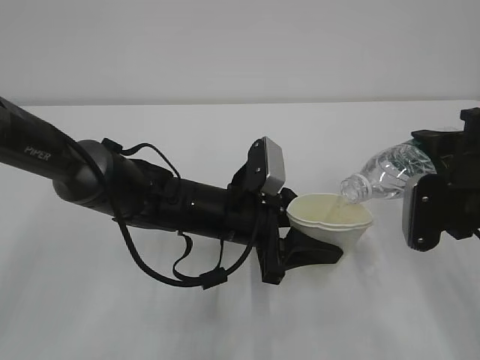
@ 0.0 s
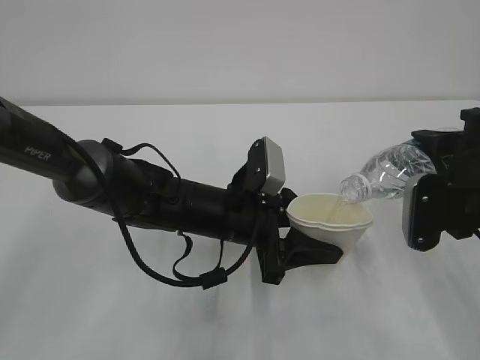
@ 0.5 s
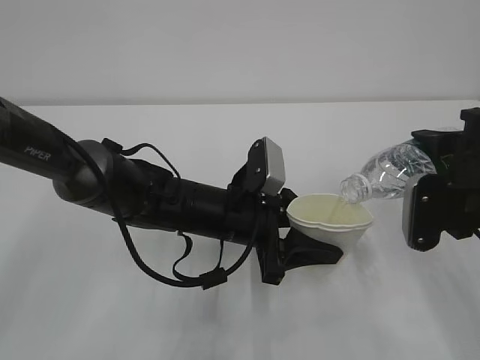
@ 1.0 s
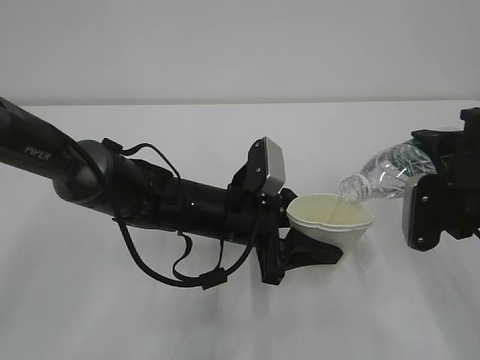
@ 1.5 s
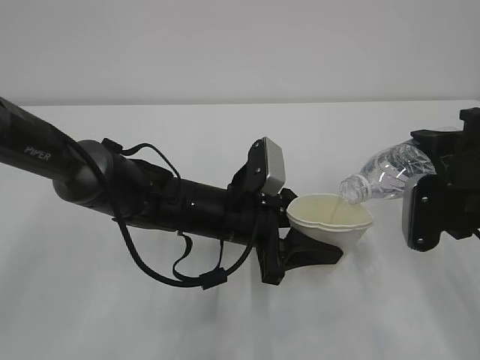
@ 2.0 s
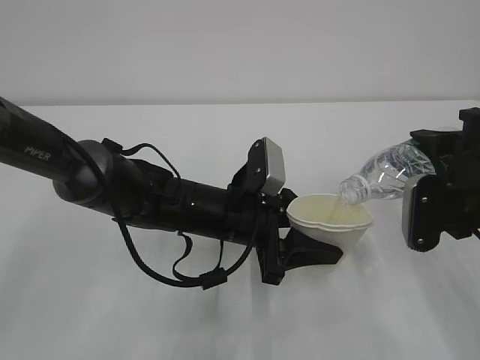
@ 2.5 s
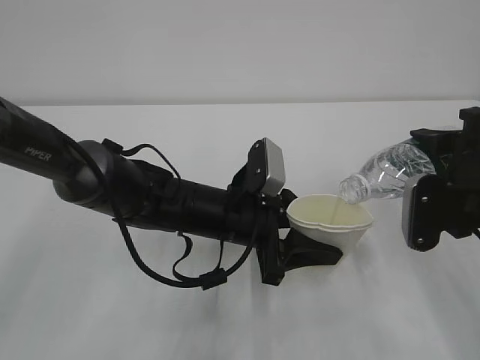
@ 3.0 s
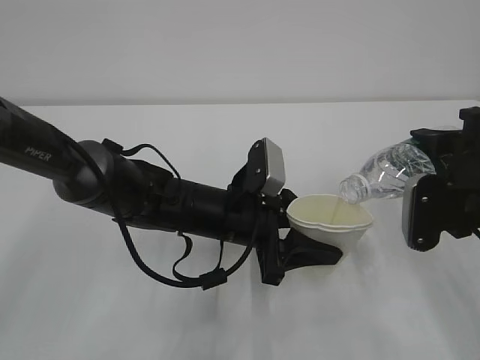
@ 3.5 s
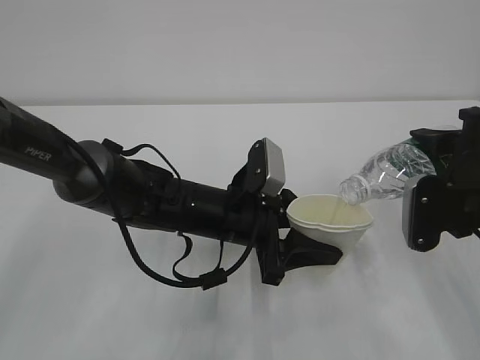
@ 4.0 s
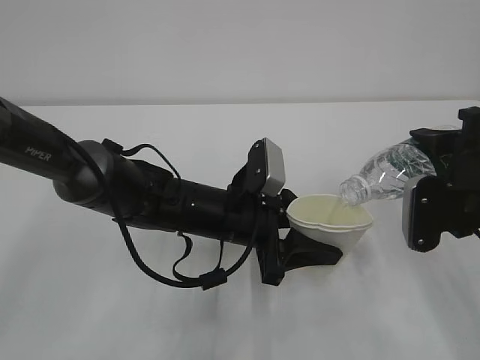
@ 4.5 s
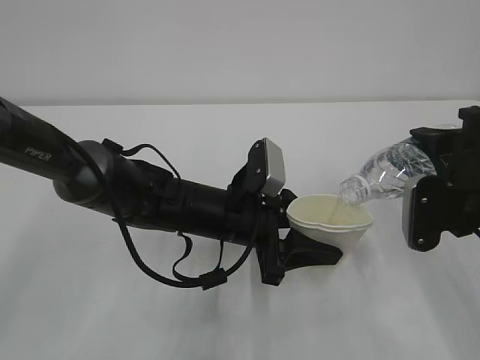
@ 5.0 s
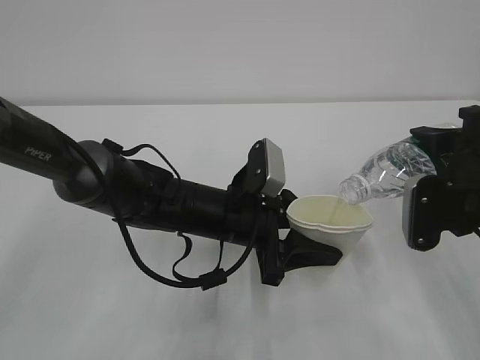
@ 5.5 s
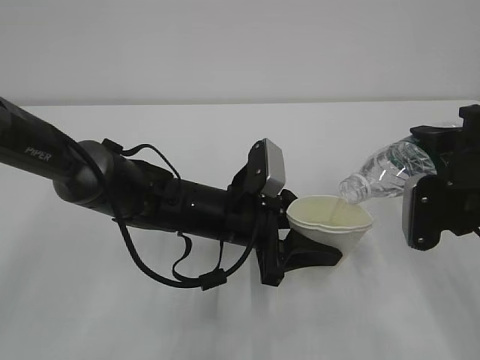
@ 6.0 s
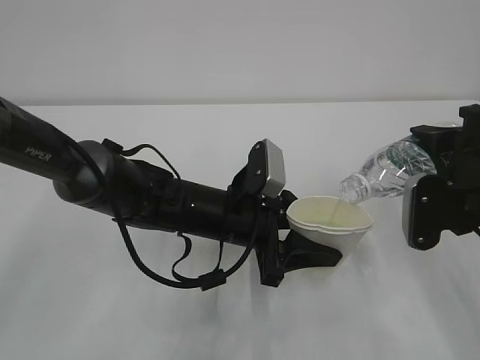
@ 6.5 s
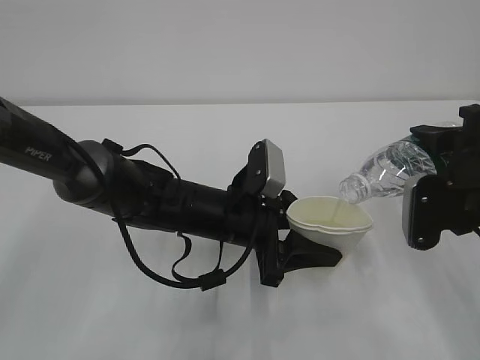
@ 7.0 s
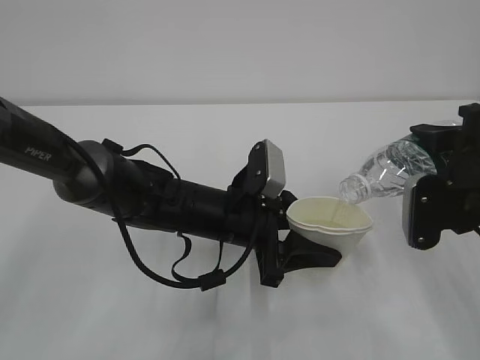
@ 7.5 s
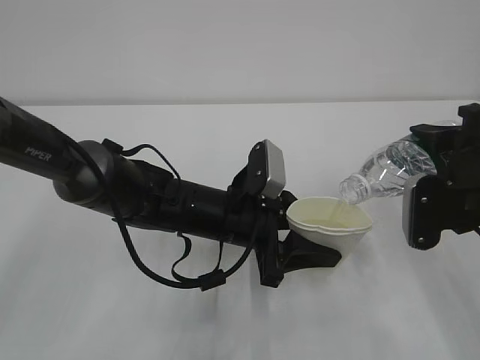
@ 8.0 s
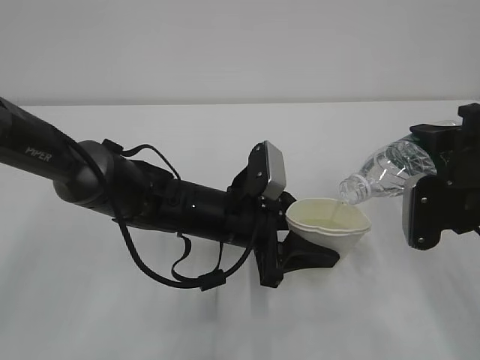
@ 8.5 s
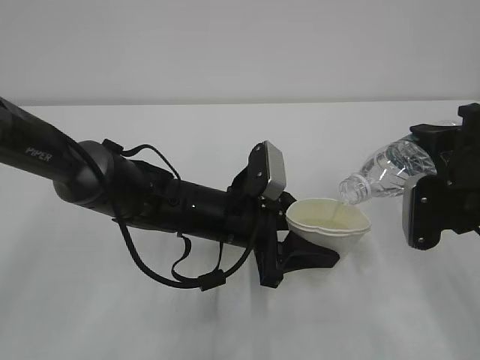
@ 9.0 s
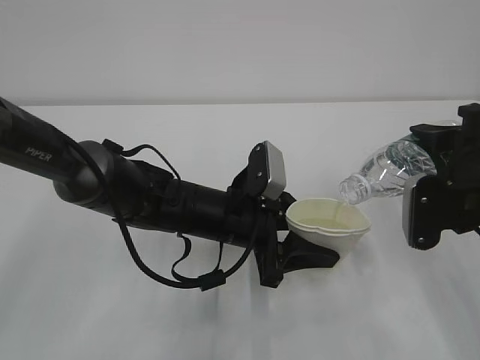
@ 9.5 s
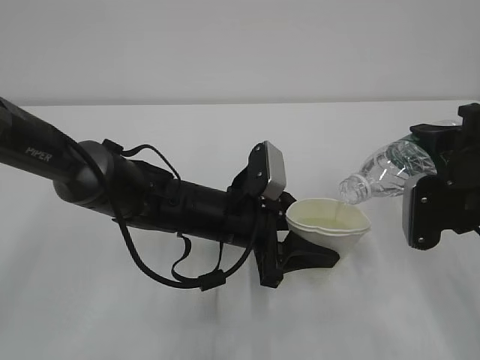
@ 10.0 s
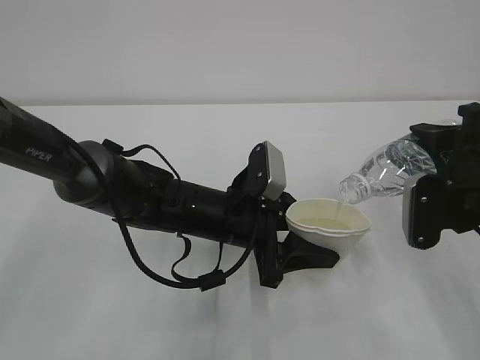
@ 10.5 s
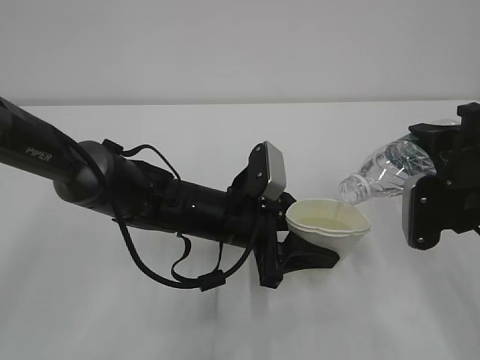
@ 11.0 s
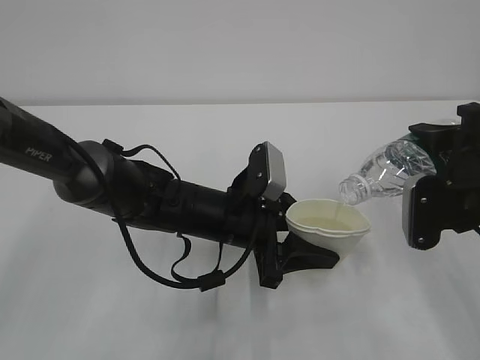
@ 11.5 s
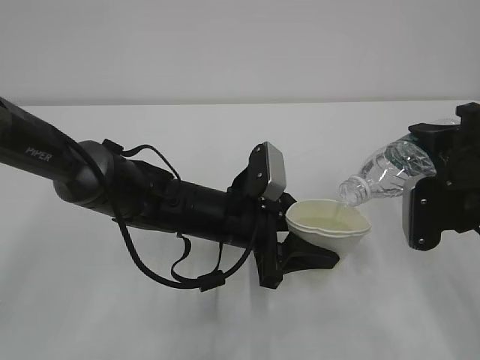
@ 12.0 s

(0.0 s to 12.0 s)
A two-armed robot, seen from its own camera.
0.0 s - 12.0 s: The two grippers keep their place.

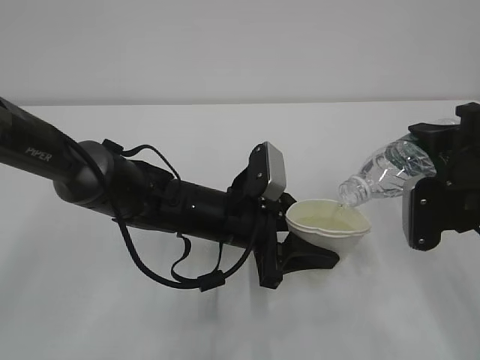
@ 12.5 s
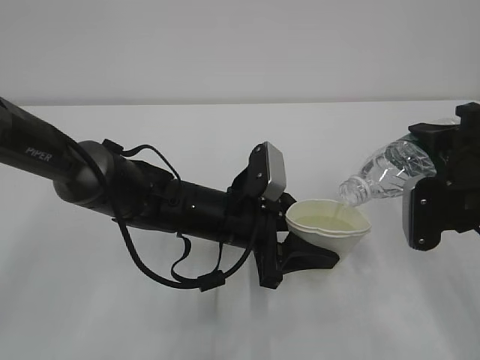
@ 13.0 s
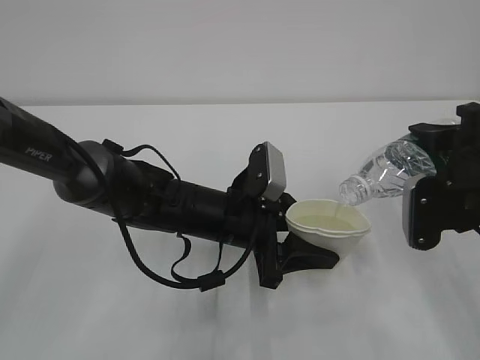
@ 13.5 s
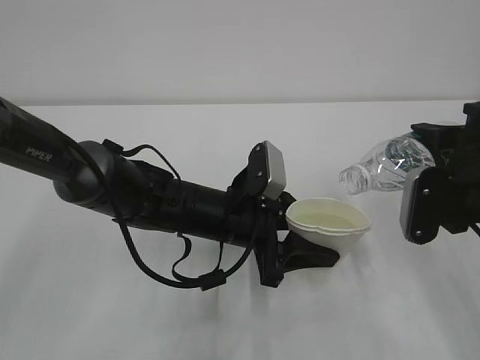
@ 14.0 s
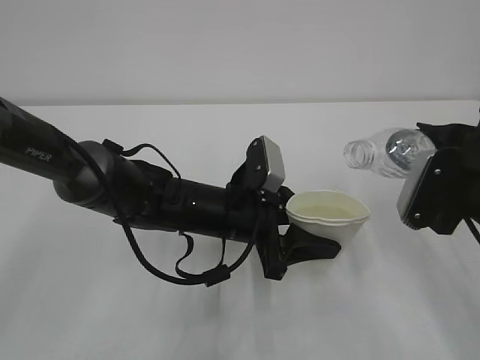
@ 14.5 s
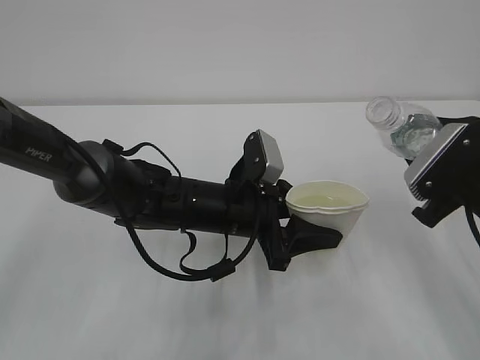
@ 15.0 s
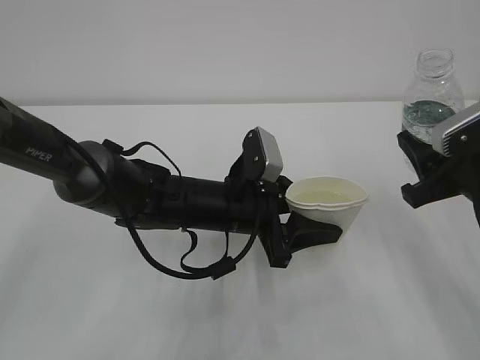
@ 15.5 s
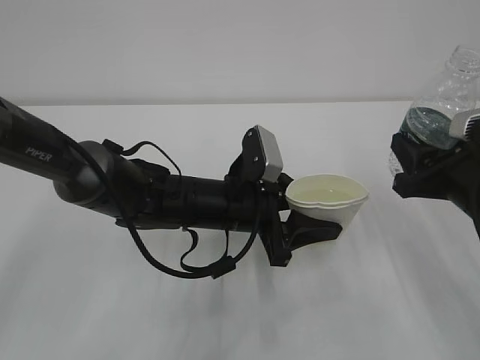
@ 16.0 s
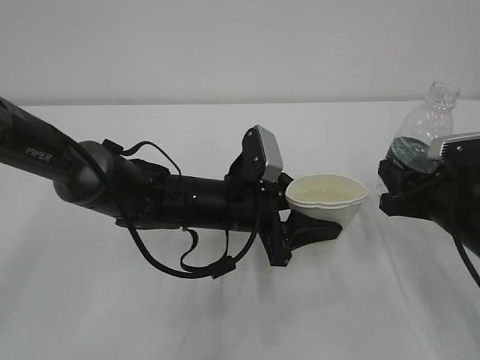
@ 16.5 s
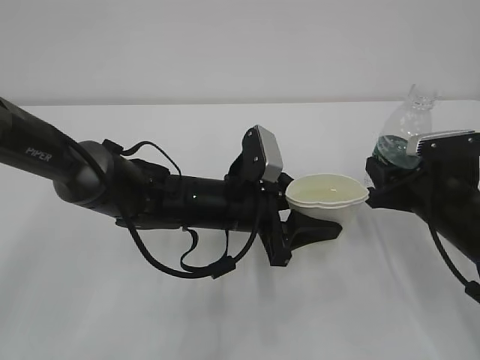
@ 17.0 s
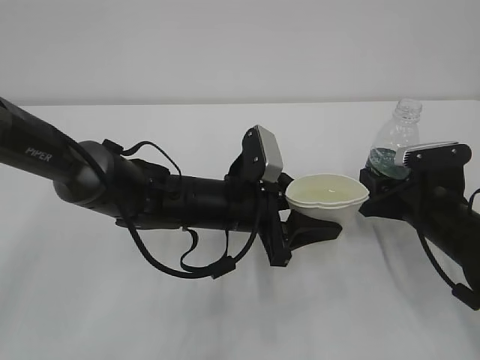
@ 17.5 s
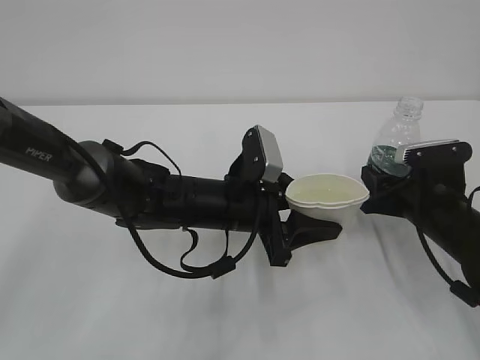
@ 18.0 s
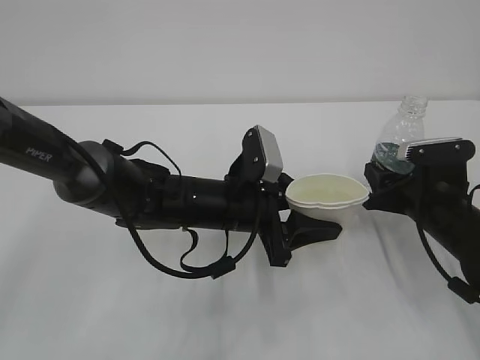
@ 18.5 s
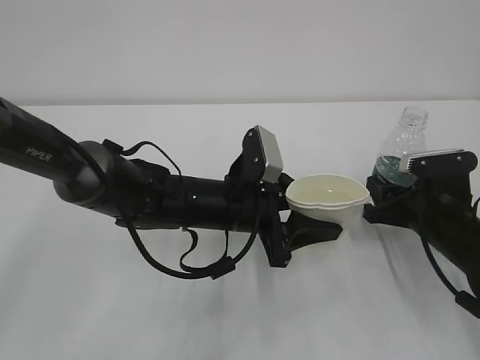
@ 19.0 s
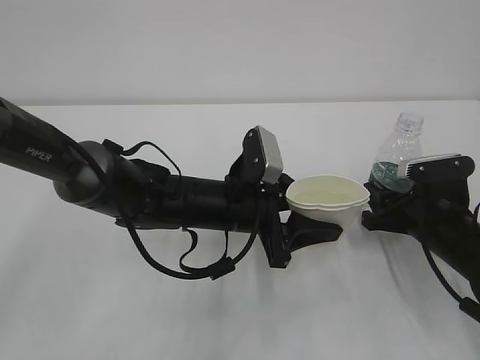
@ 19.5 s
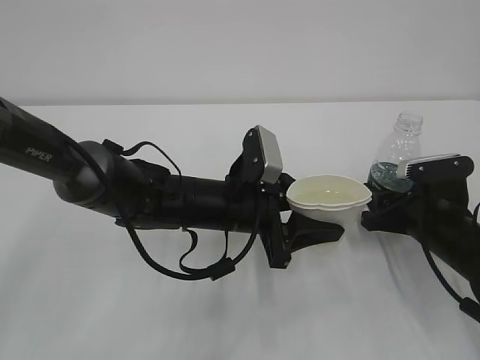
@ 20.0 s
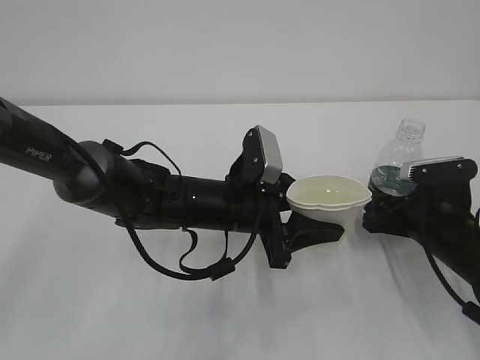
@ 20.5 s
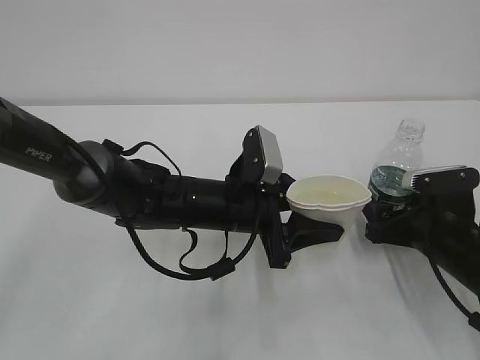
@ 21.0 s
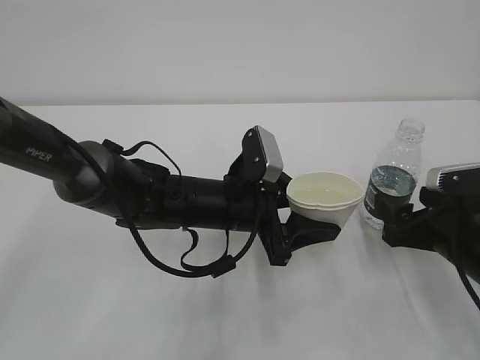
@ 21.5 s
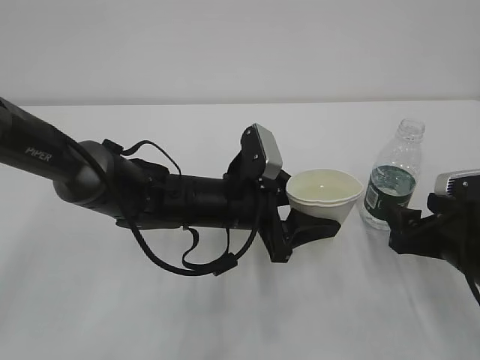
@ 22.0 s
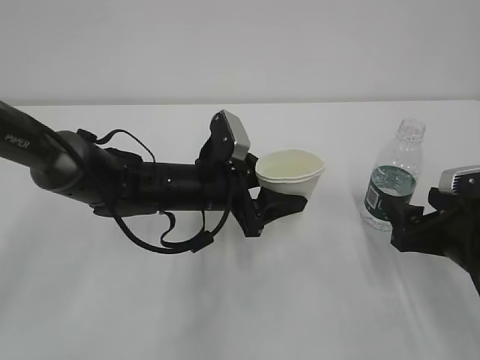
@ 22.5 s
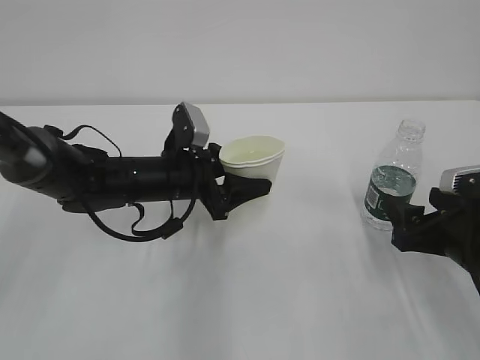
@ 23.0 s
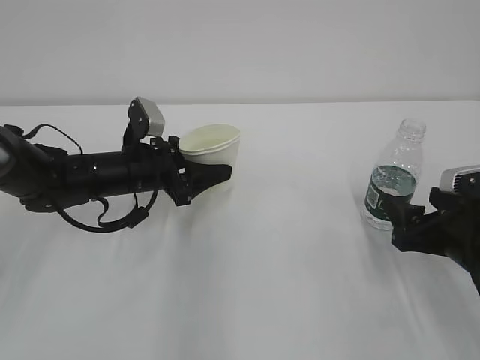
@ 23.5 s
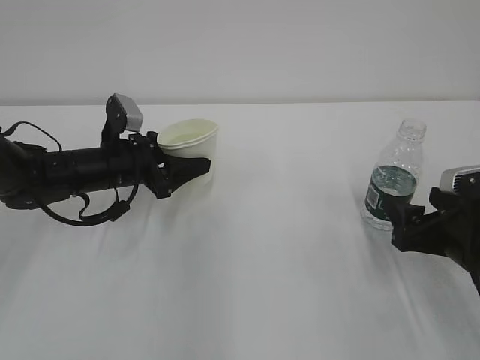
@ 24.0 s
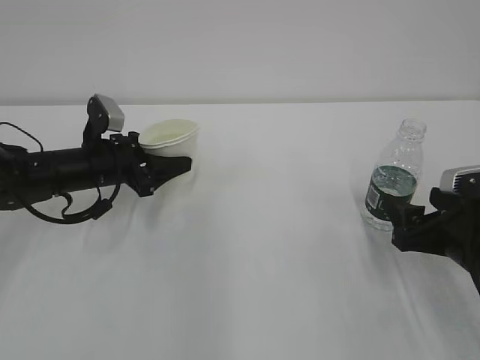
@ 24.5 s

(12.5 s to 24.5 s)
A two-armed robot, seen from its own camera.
14.5 s - 16.5 s: The right gripper heads downward, covering roughly 5 cm.
16.5 s - 18.5 s: The right gripper changes place by about 5 cm.
18.5 s - 20.5 s: The right gripper opens its fingers.
20.5 s - 22.5 s: The right gripper is displaced backward by roughly 5 cm.
22.5 s - 24.5 s: The left gripper goes approximately 15 cm to the left.

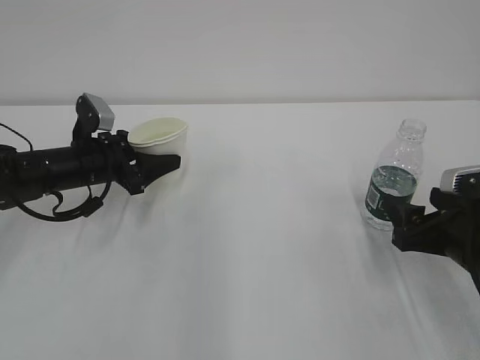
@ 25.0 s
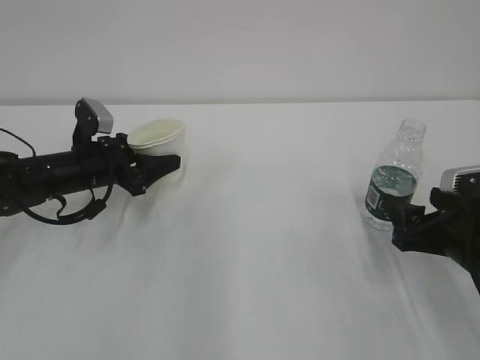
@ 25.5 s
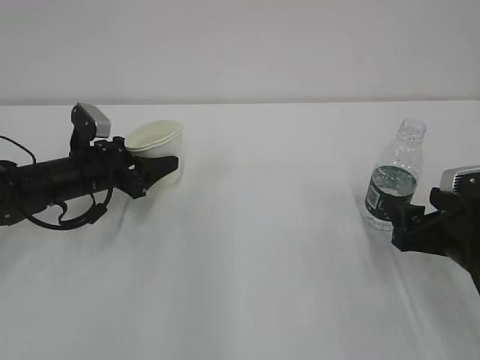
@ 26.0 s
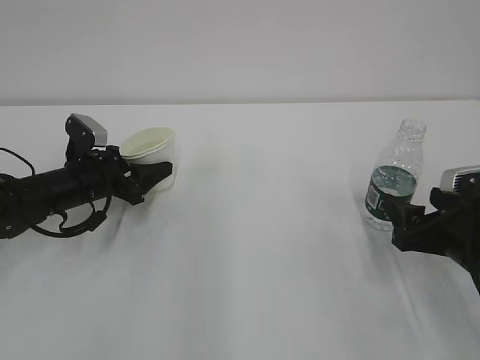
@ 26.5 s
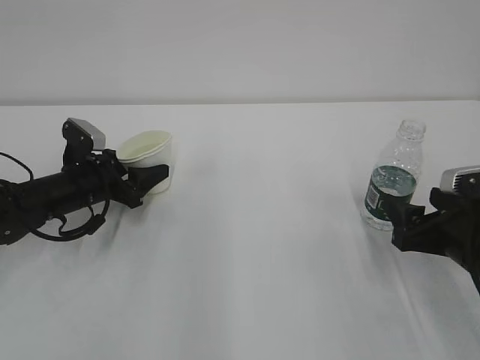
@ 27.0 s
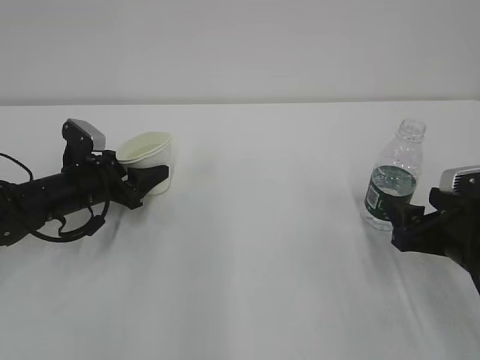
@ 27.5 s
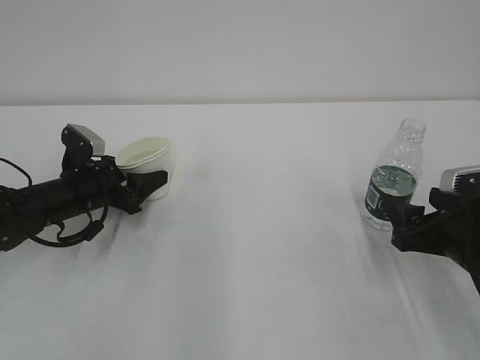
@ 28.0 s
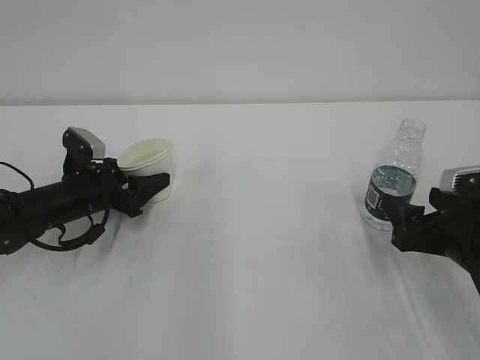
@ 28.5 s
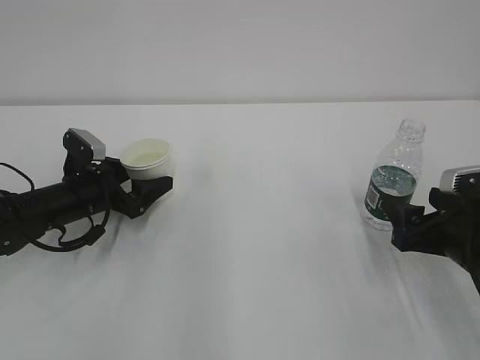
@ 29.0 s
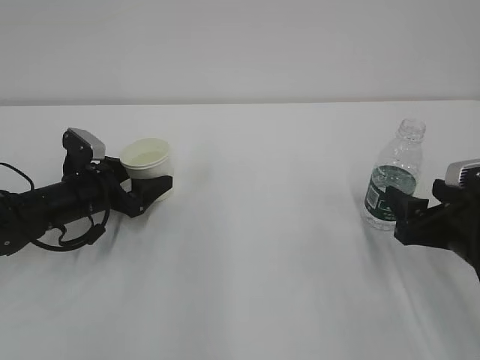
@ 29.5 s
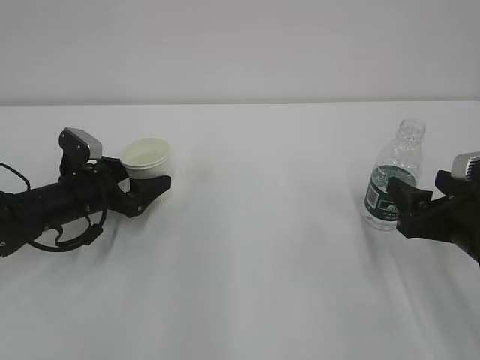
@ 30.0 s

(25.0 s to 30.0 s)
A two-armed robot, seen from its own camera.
25.0 s - 27.5 s: The grippers make only small movements.
27.5 s - 30.0 s: The left gripper opens up.
